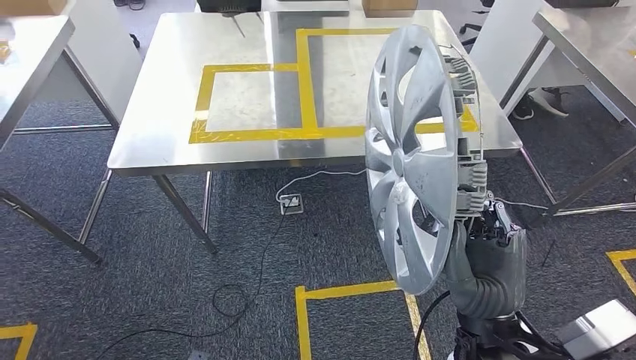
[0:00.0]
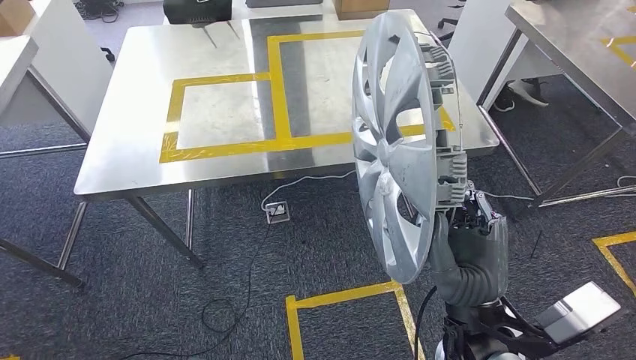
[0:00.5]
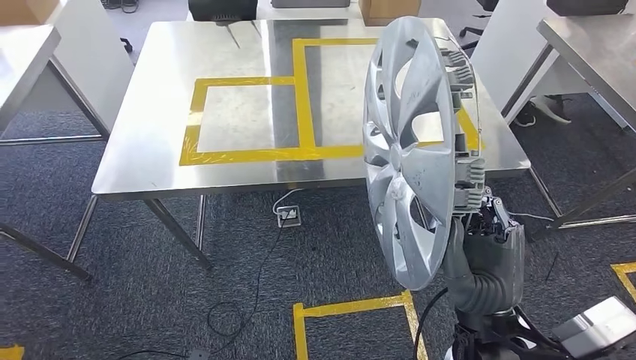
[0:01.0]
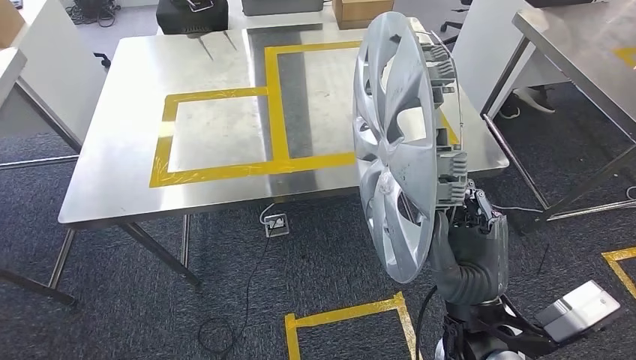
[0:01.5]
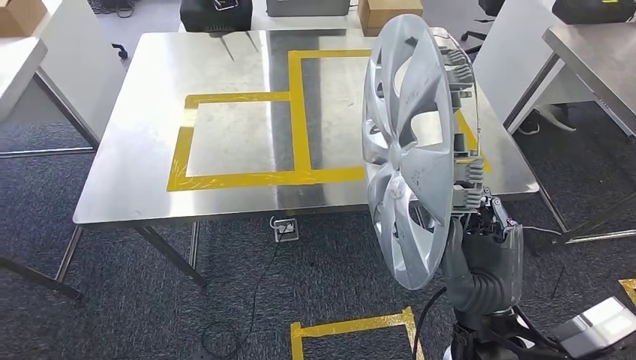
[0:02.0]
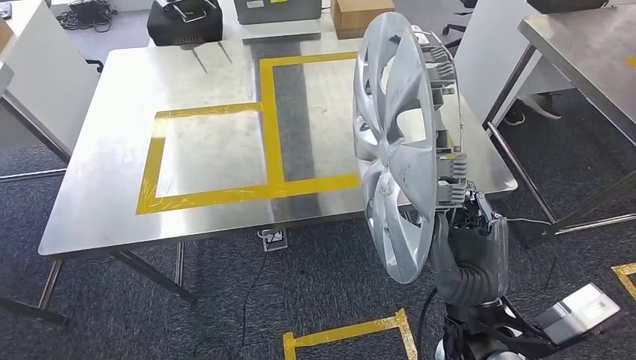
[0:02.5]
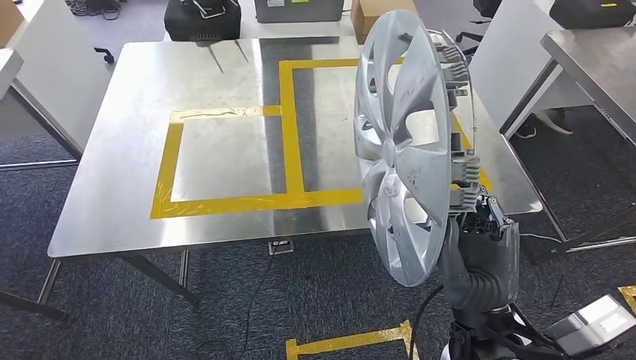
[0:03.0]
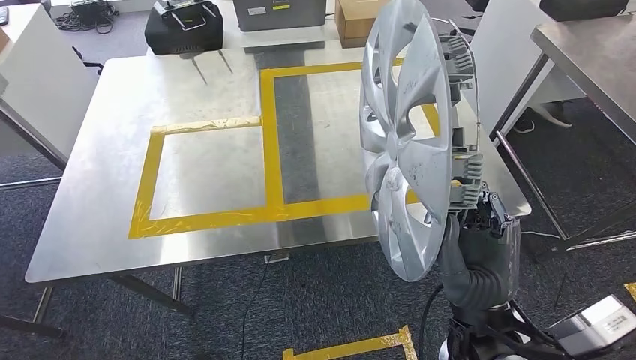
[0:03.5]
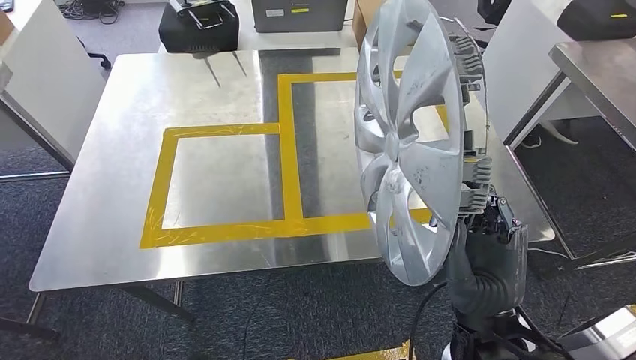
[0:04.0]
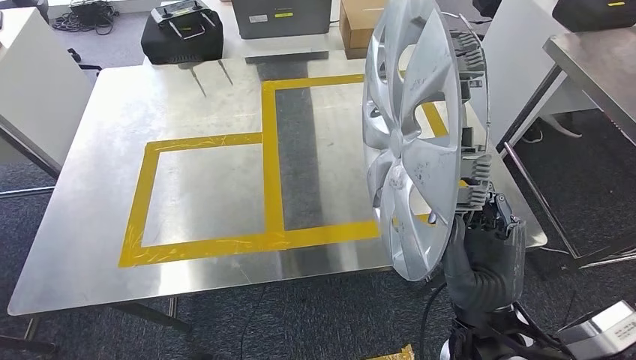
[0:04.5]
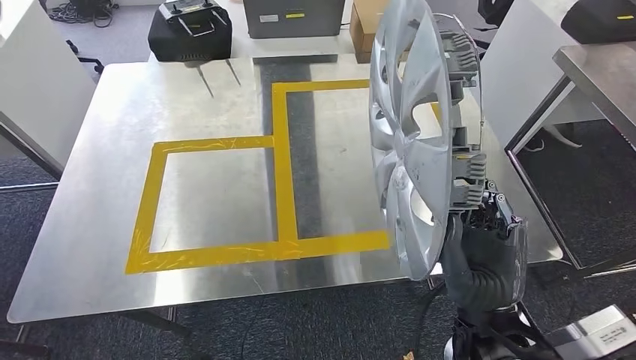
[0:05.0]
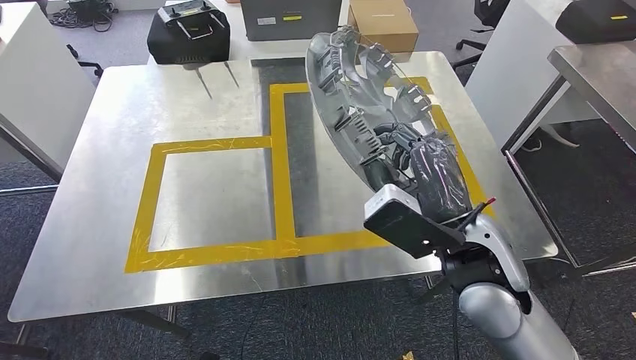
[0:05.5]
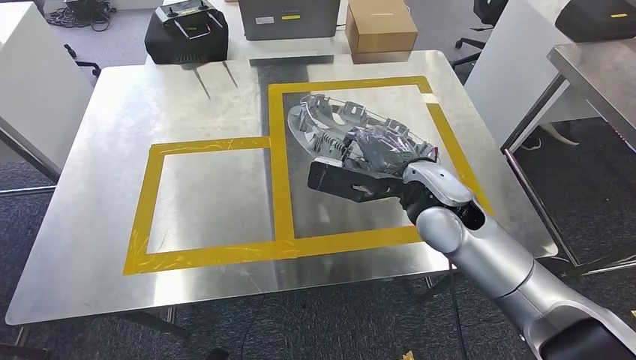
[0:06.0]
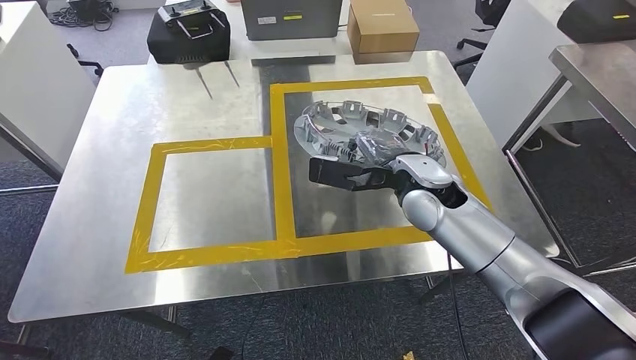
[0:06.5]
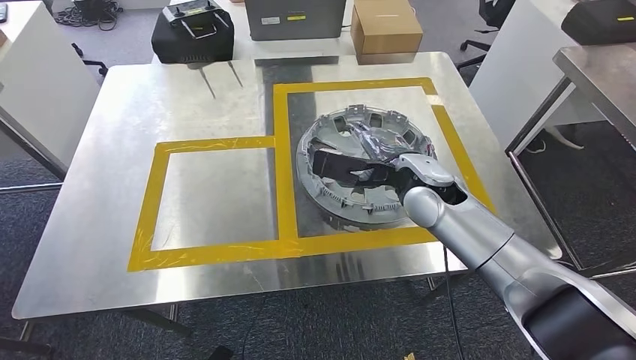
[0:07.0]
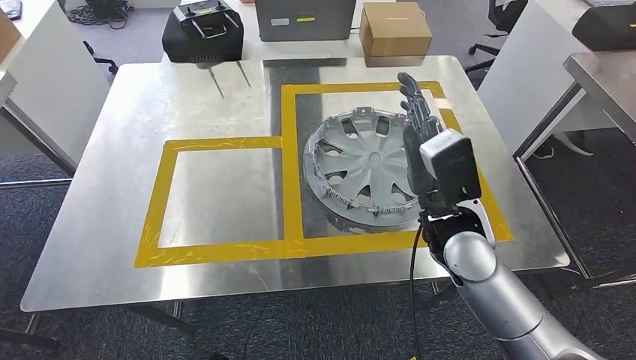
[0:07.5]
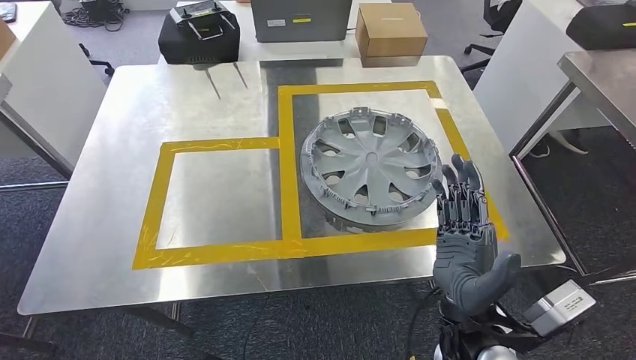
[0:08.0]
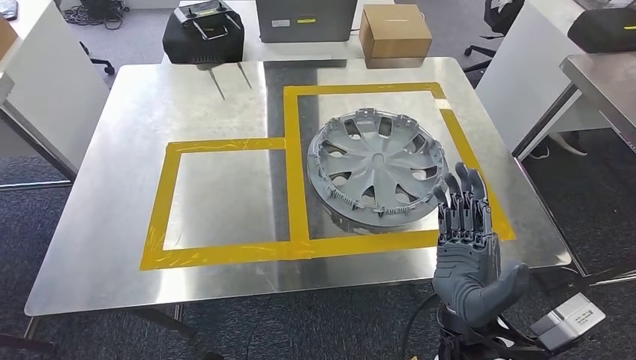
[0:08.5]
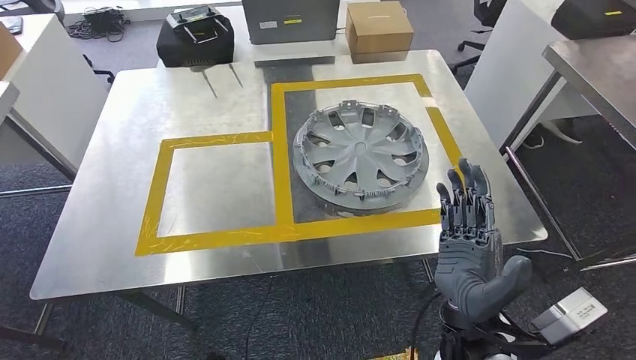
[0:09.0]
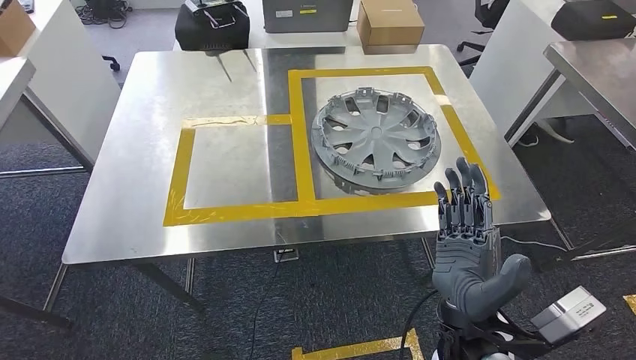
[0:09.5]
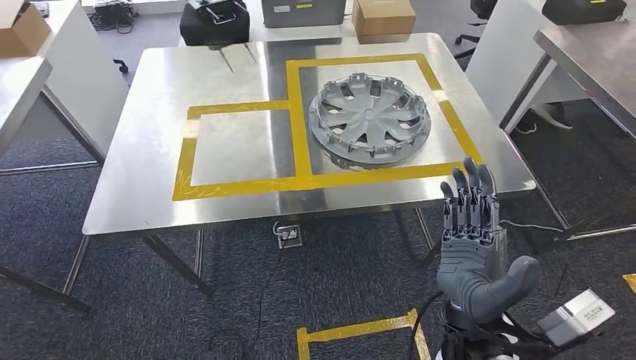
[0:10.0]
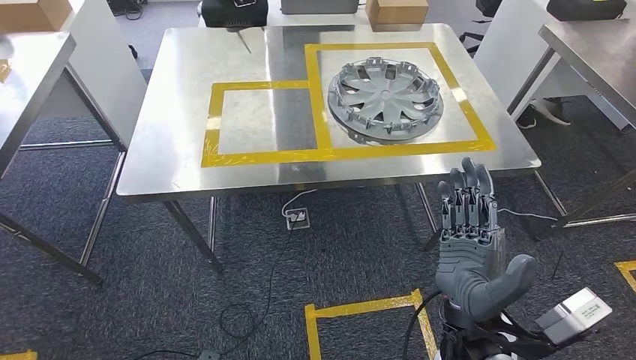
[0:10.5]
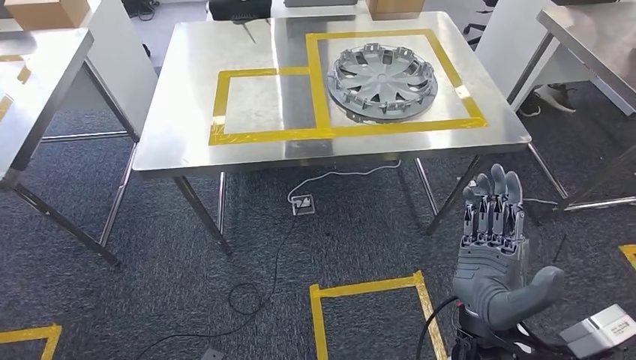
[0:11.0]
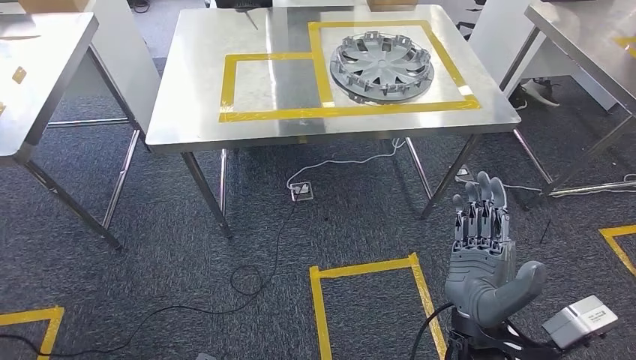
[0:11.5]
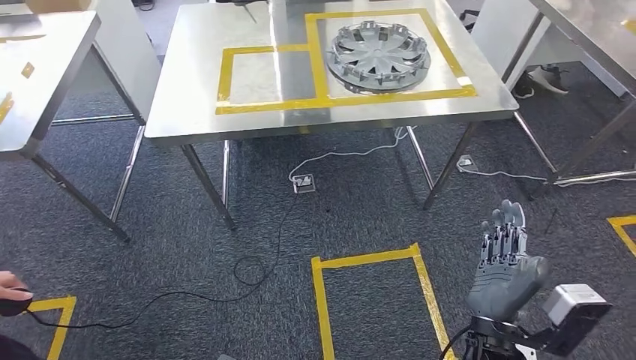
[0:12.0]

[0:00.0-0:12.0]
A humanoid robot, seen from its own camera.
Step, 0:00.0 to 0:09.0: Insert the small component into the corresponding slot on the workbench.

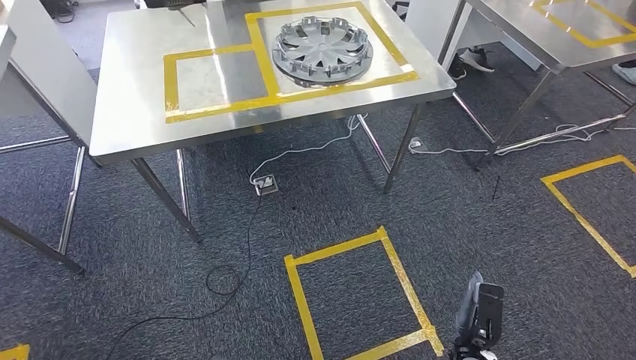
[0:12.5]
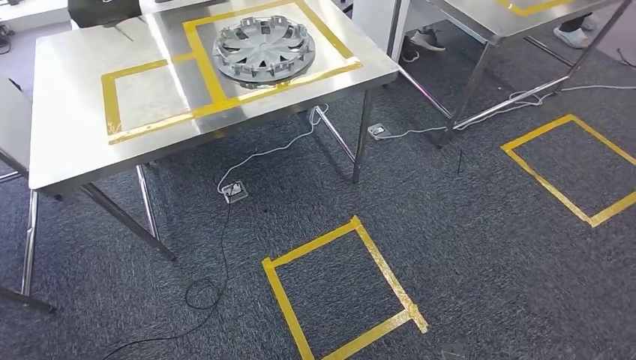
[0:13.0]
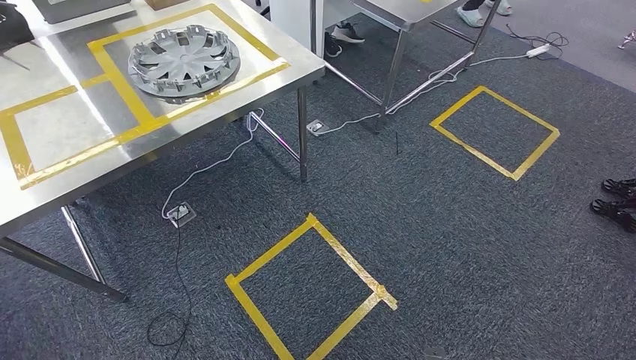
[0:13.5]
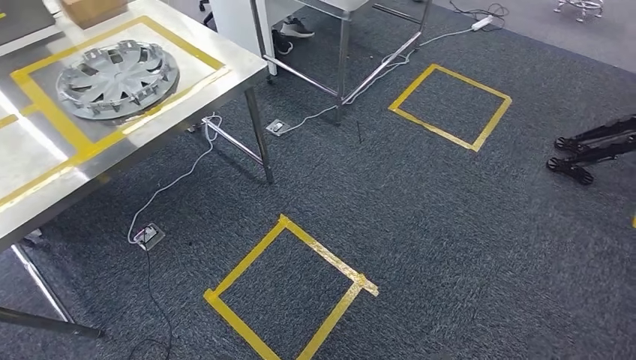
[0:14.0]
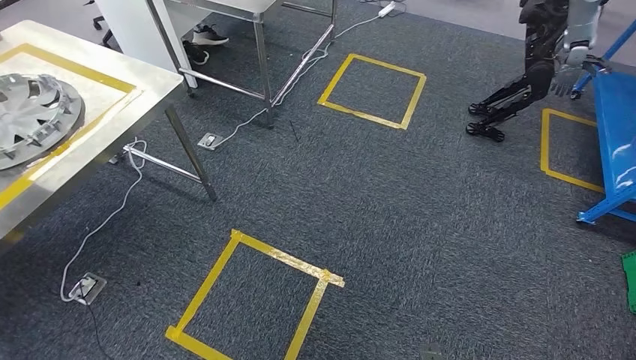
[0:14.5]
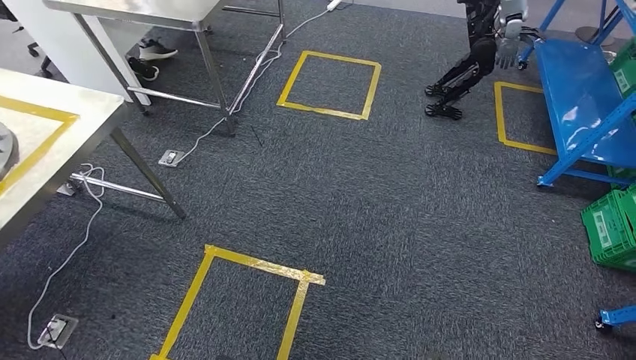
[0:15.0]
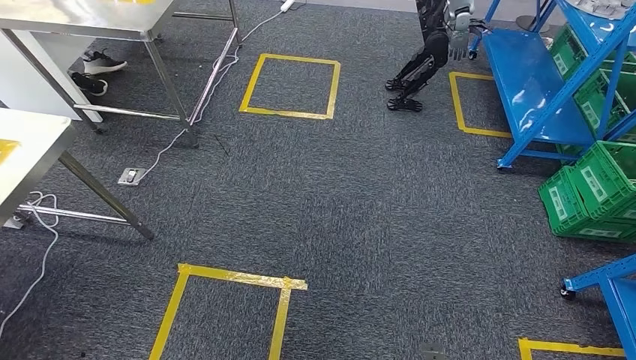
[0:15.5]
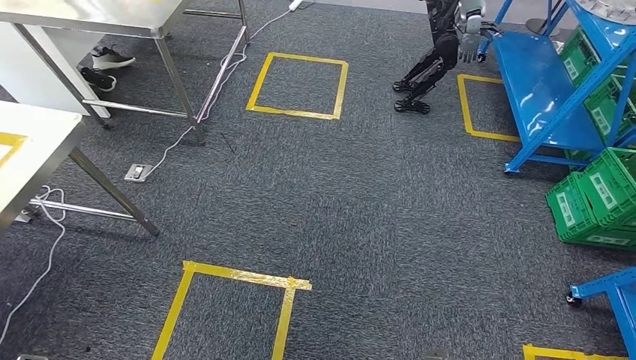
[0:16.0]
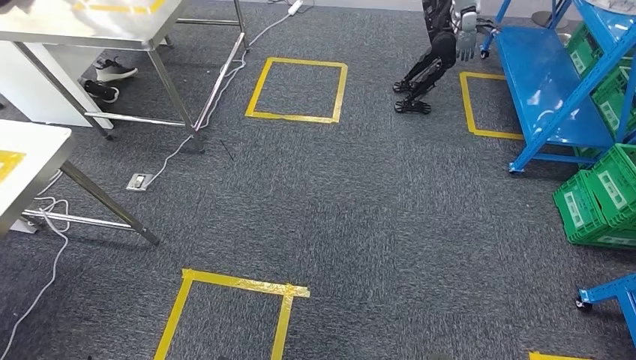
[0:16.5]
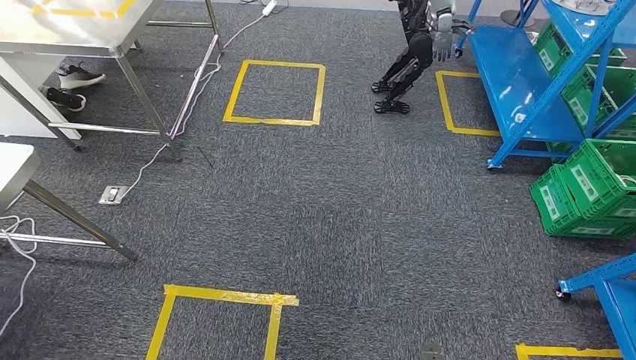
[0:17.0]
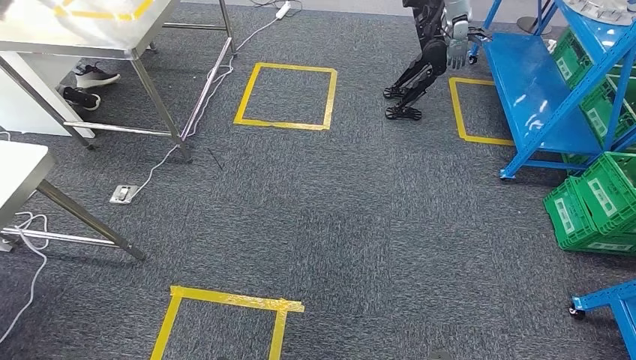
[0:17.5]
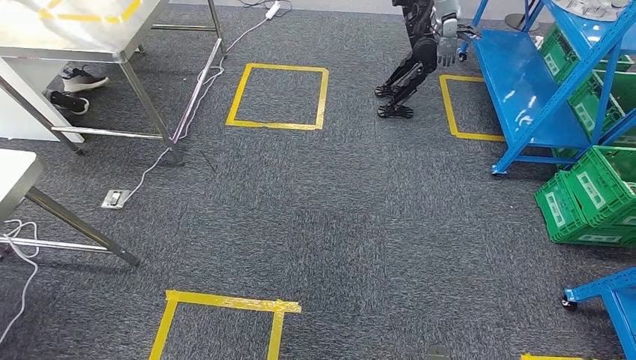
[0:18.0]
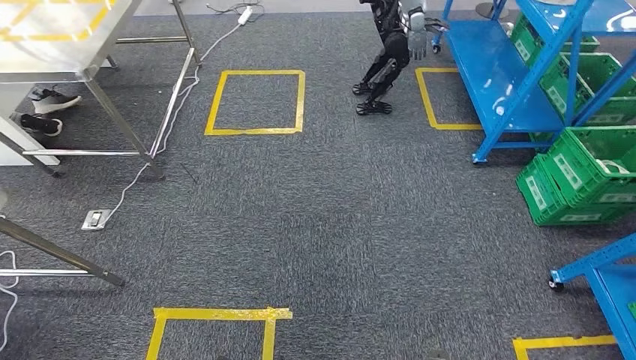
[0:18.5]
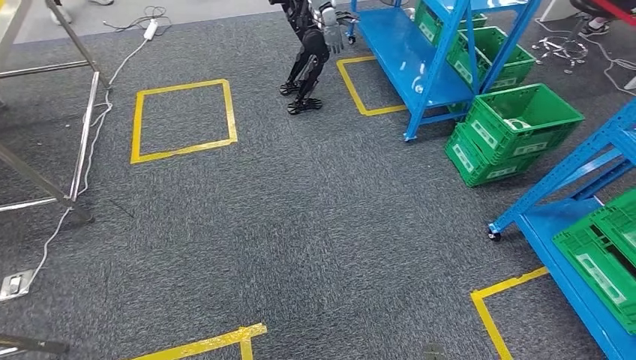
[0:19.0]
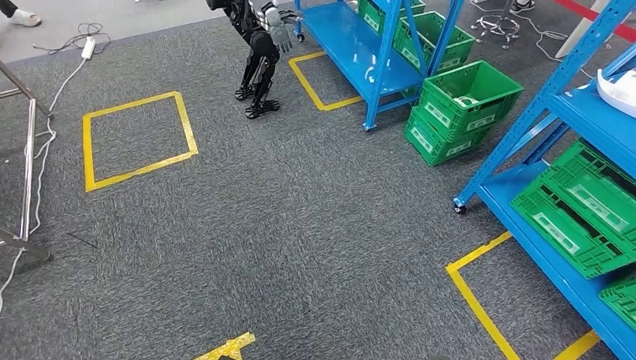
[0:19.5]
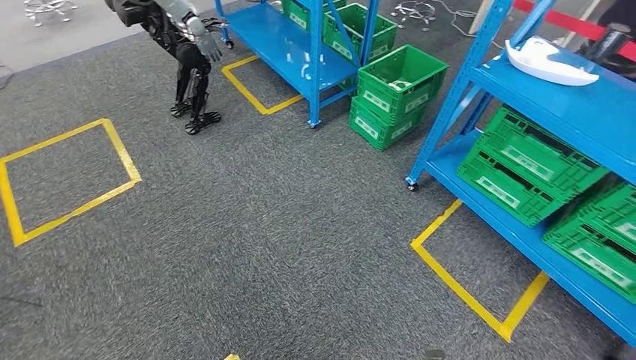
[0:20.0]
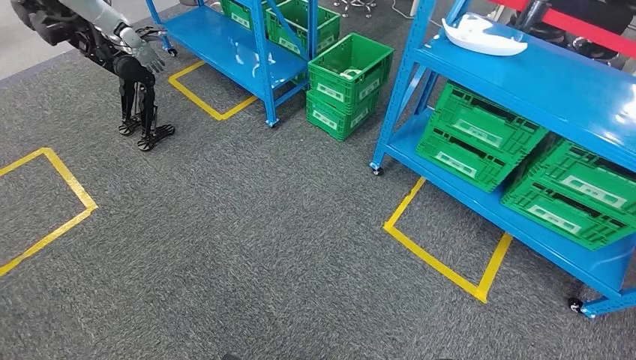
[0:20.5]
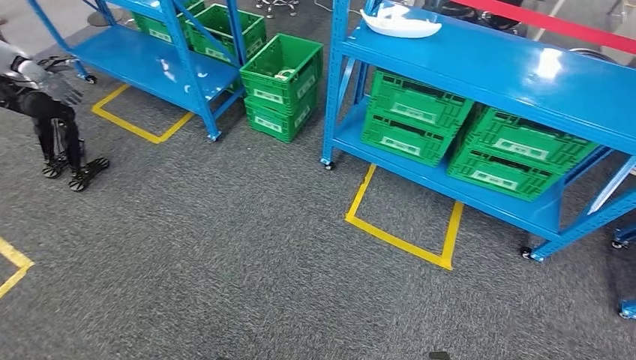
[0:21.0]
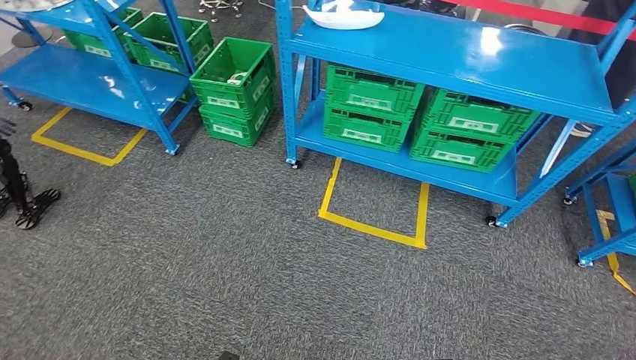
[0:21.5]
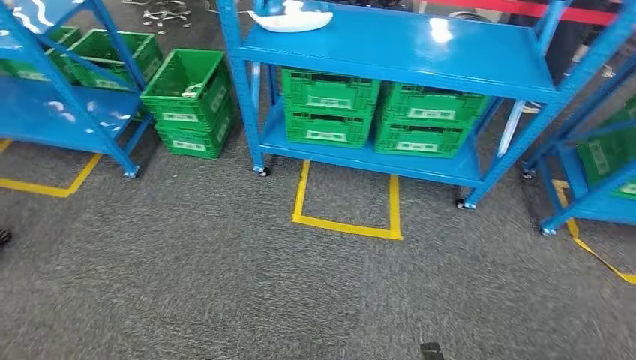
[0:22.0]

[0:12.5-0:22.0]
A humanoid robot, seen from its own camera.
Step, 0:12.5 to 0:22.0: Move to the initial position of the workbench.
